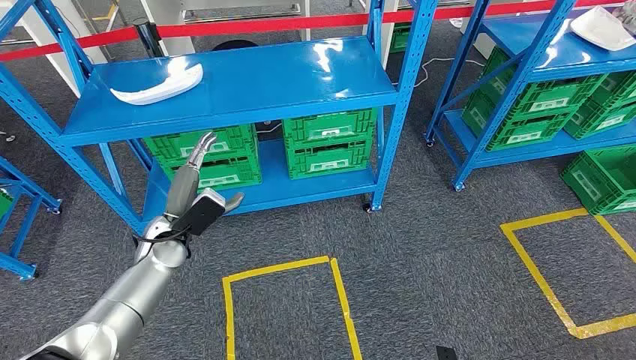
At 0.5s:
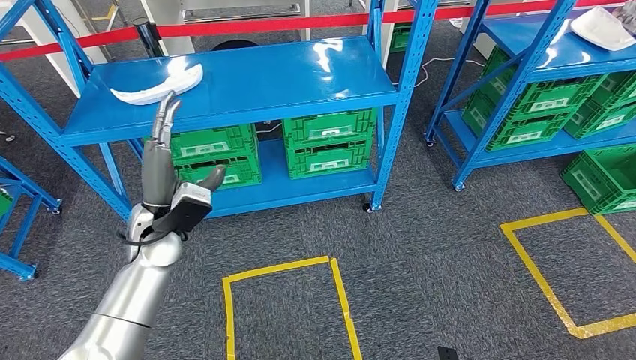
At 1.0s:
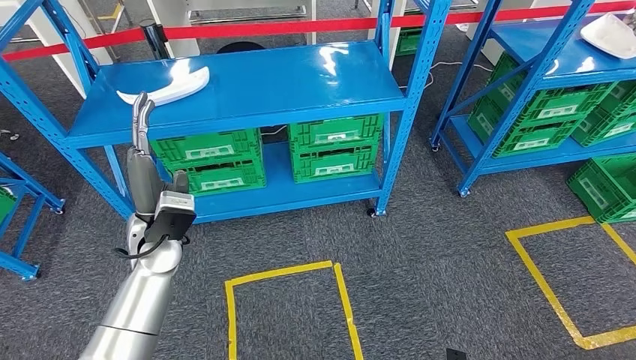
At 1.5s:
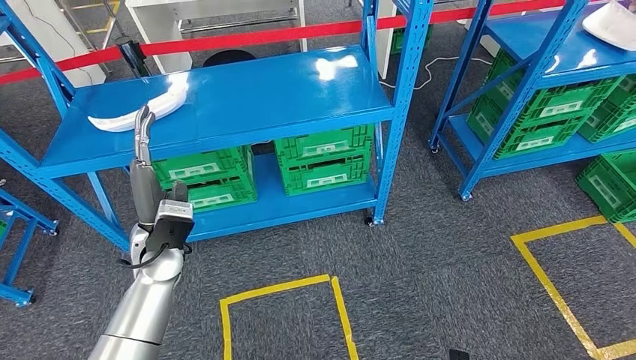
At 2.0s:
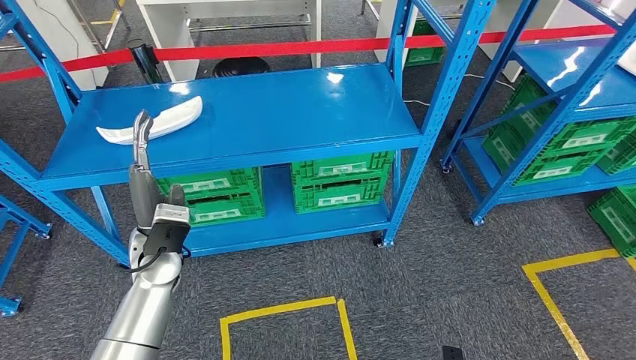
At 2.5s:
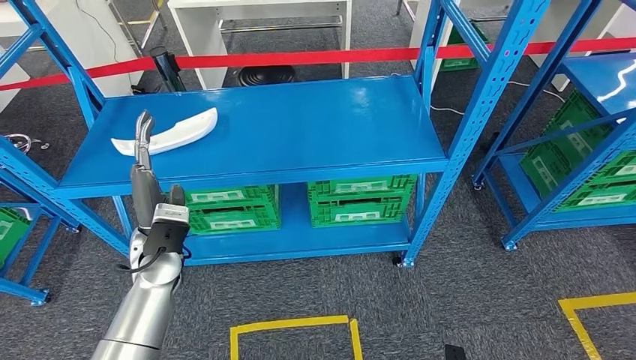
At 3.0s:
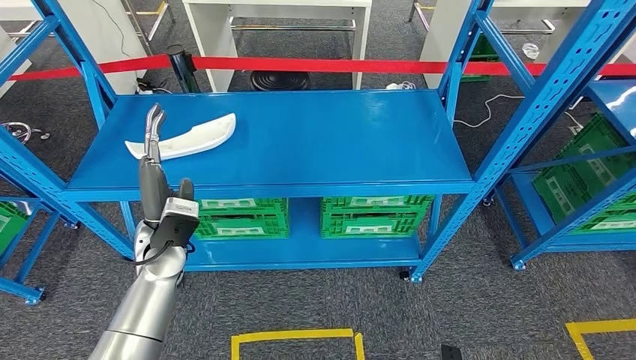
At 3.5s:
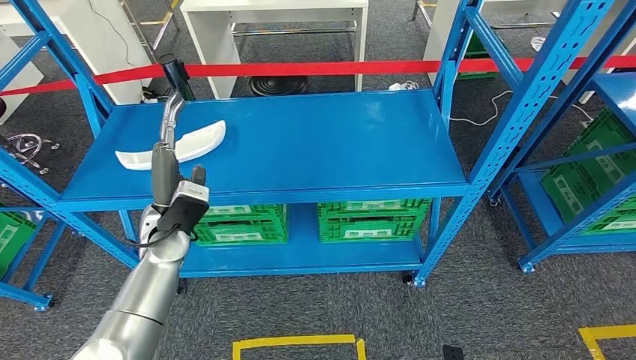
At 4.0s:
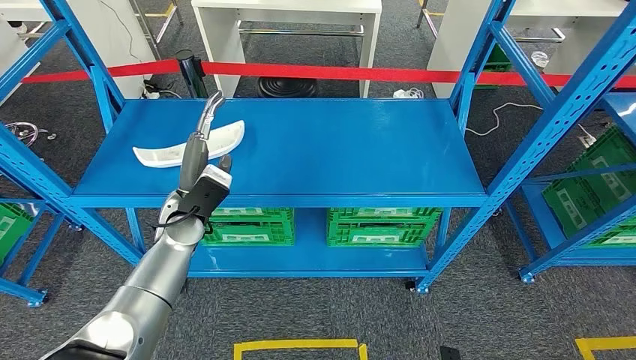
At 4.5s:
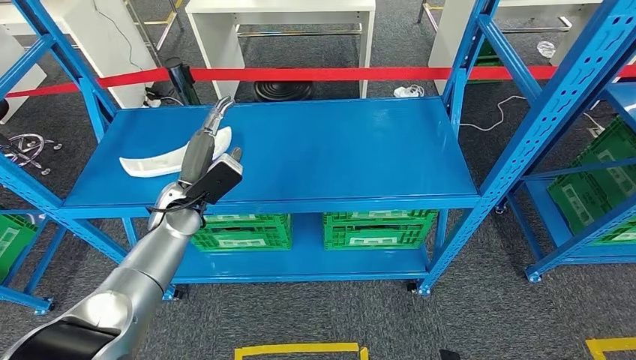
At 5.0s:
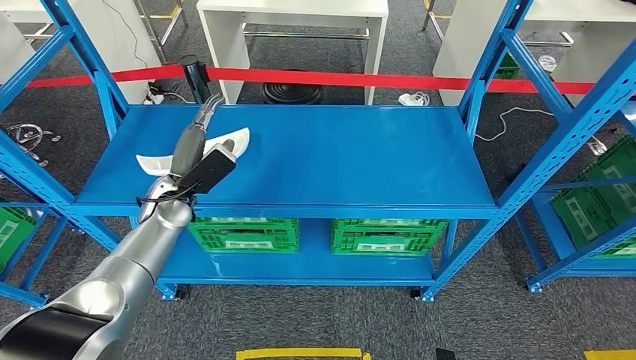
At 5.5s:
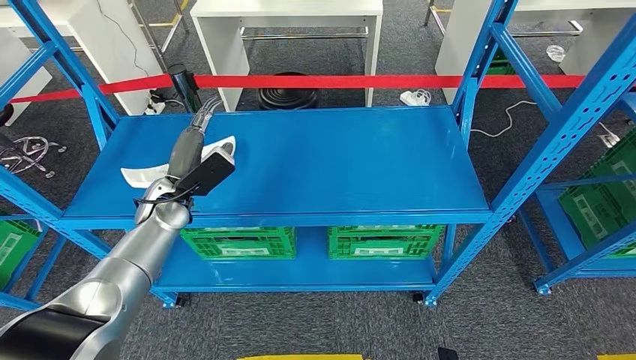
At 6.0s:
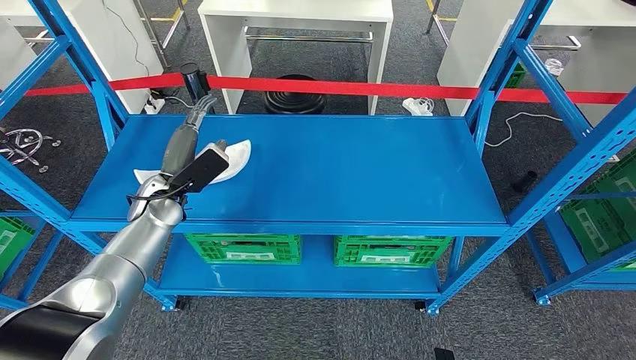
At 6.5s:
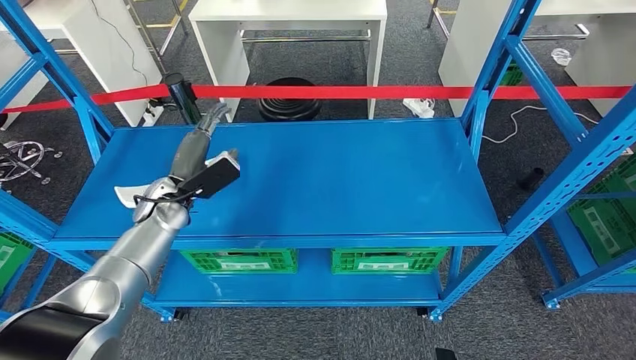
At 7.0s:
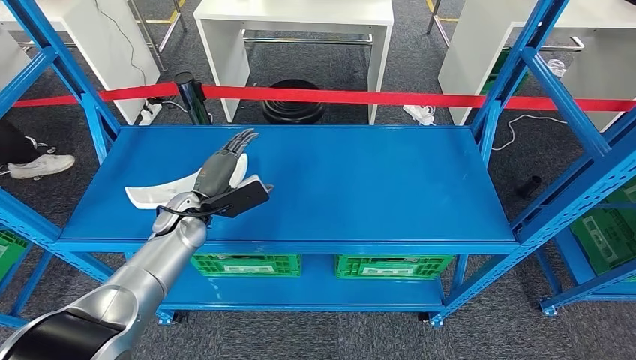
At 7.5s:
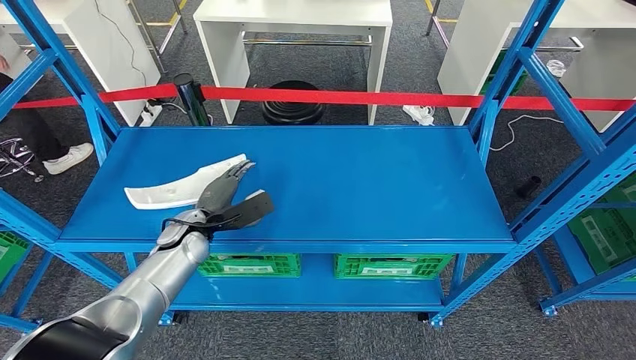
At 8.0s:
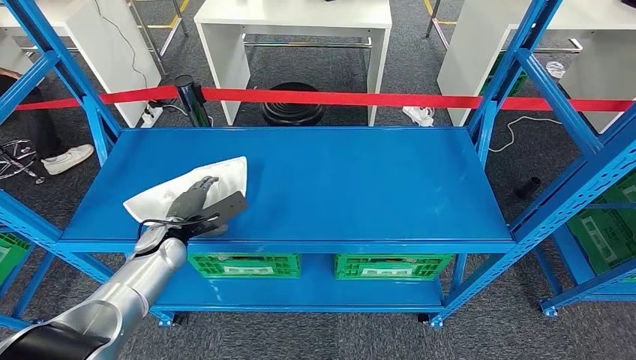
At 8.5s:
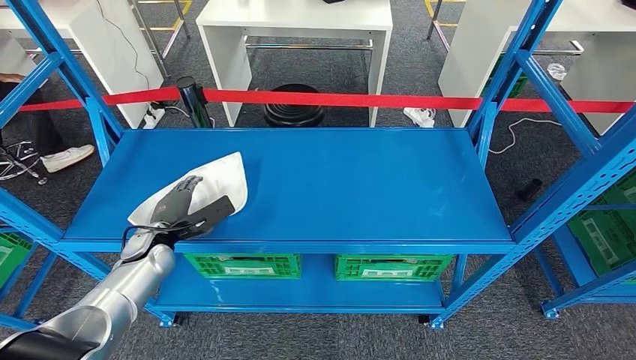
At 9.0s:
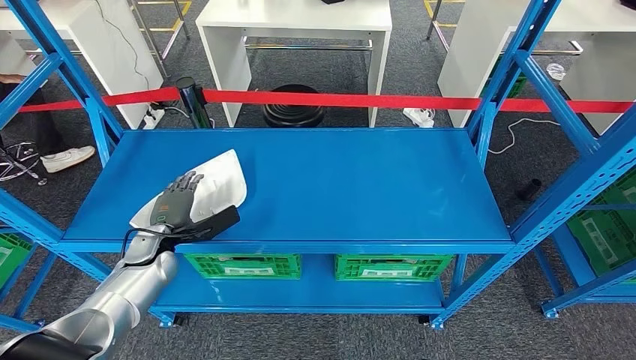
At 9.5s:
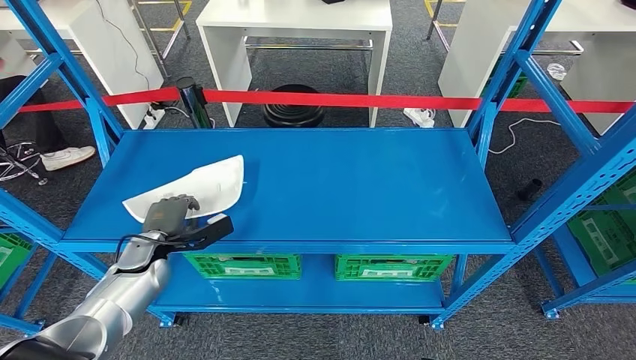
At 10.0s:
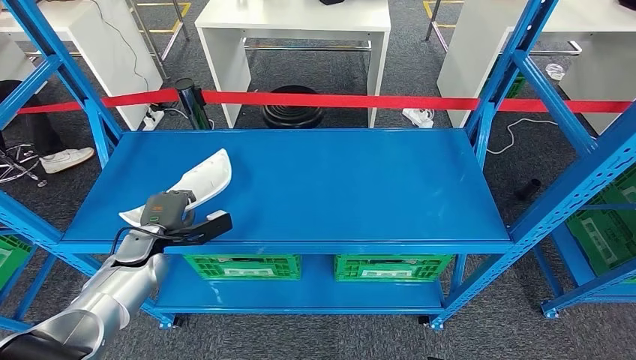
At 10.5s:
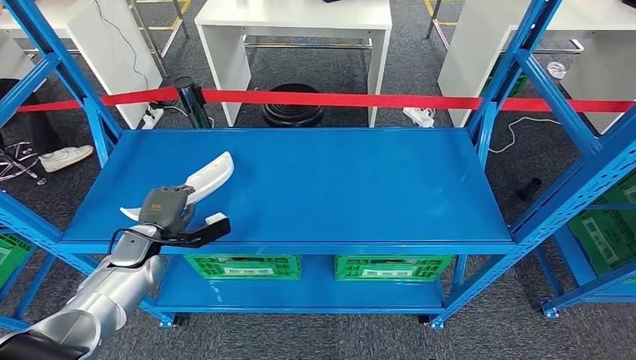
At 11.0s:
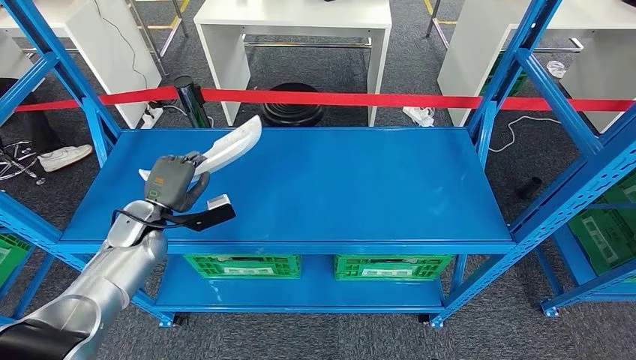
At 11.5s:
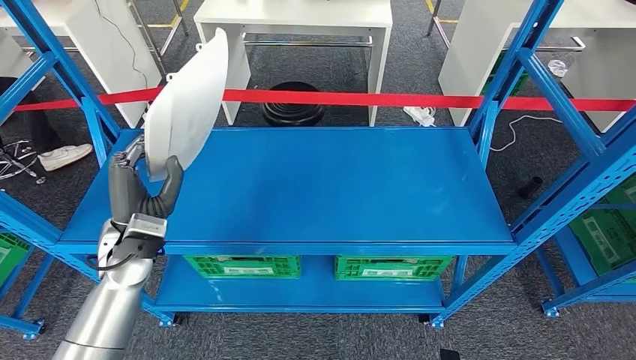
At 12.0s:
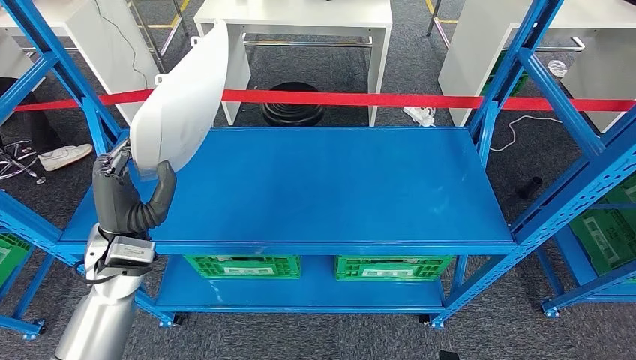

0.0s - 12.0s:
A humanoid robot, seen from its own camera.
Step, 0.0s - 11.0s: Take small components from the rack.
8.0s - 10.0s: The left hand moves approximately 5 cm.

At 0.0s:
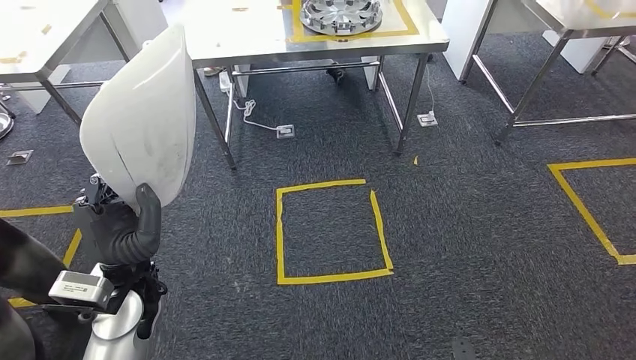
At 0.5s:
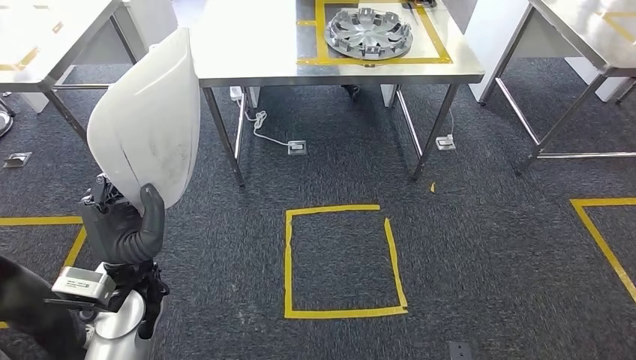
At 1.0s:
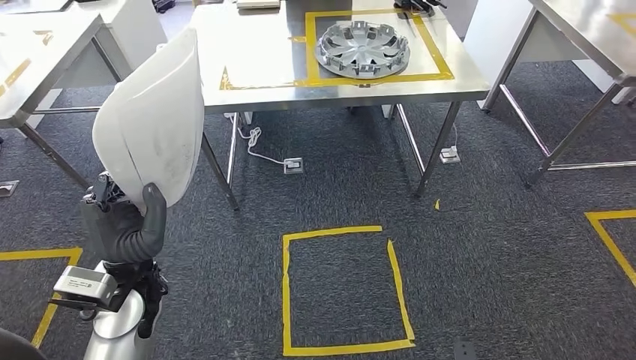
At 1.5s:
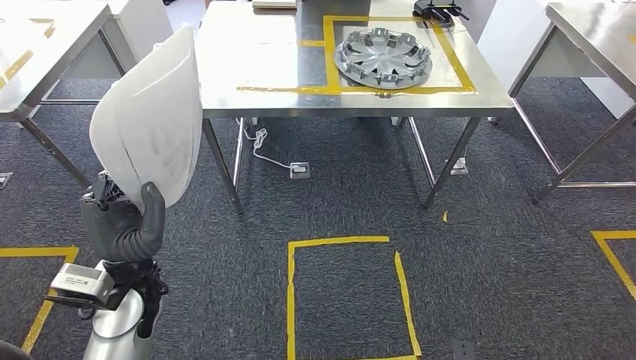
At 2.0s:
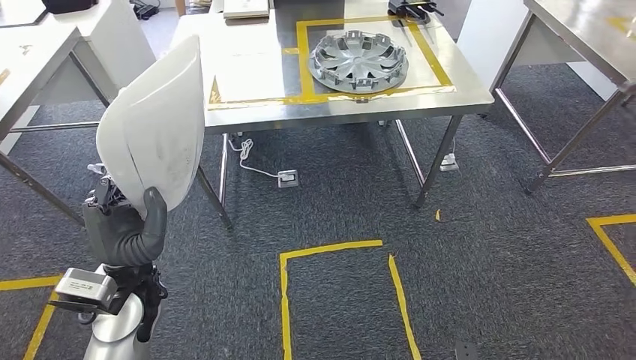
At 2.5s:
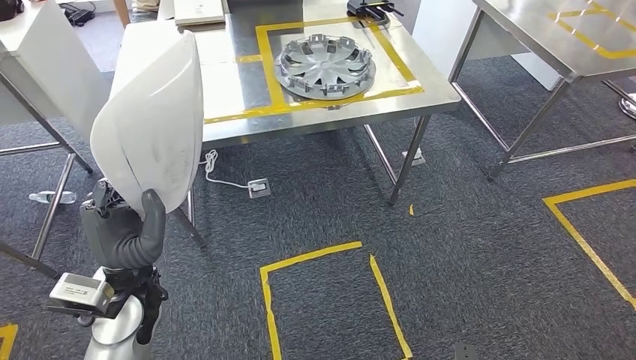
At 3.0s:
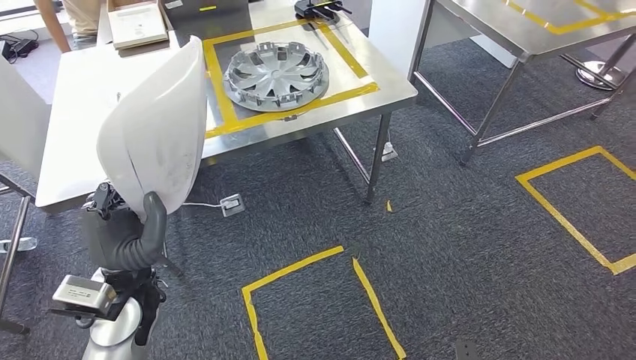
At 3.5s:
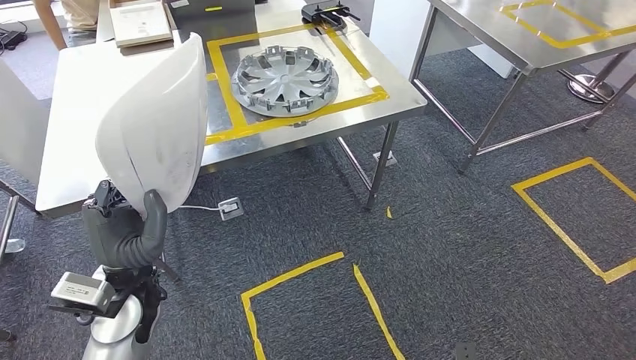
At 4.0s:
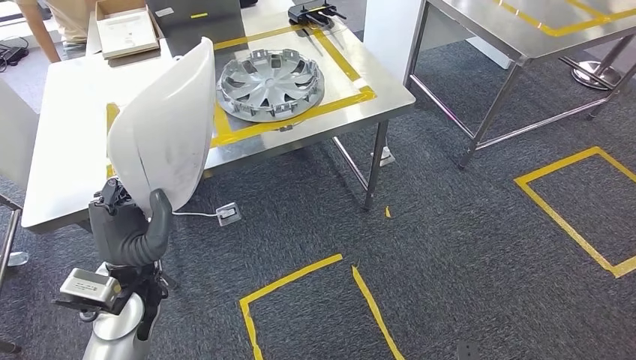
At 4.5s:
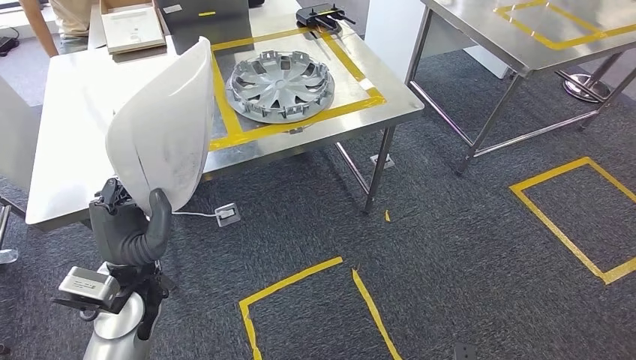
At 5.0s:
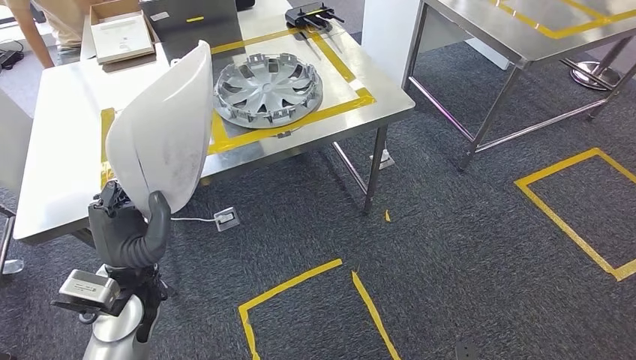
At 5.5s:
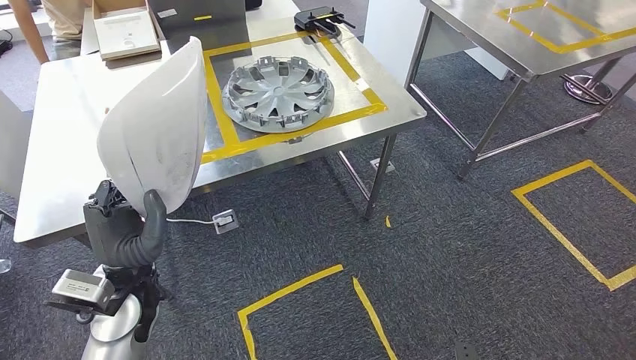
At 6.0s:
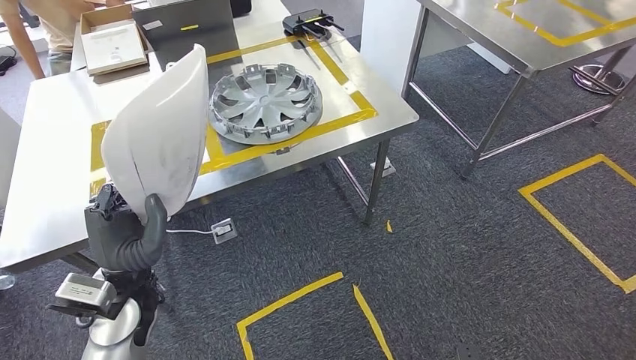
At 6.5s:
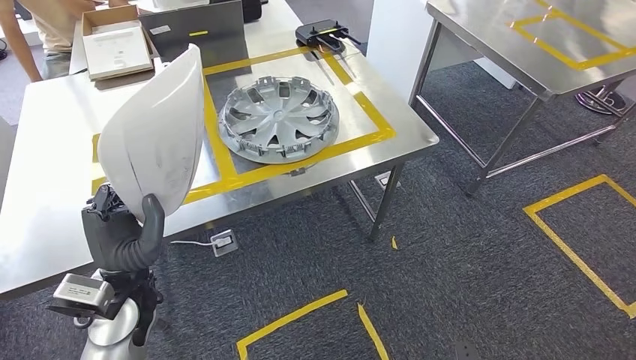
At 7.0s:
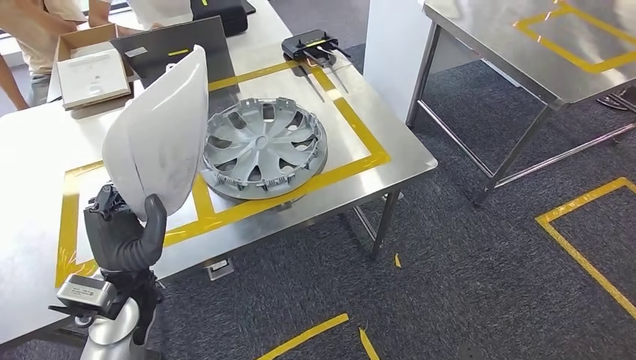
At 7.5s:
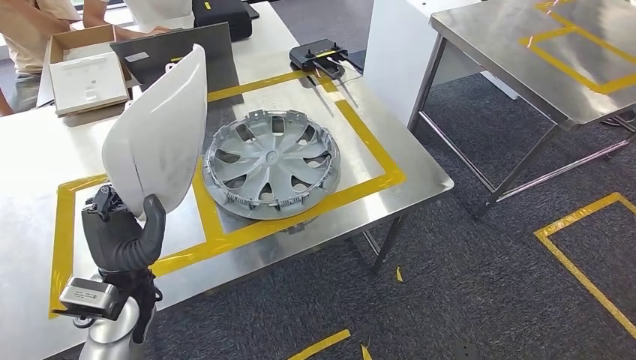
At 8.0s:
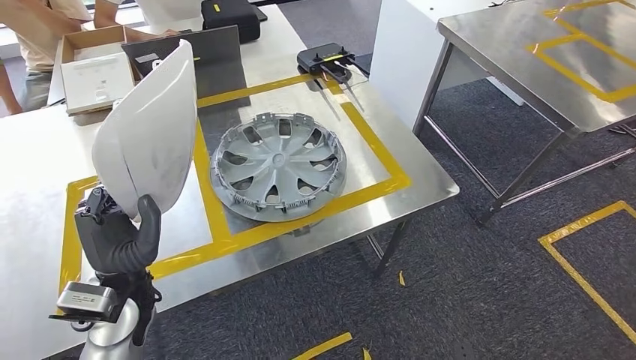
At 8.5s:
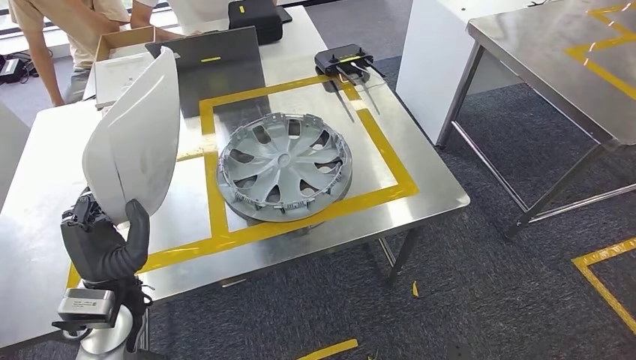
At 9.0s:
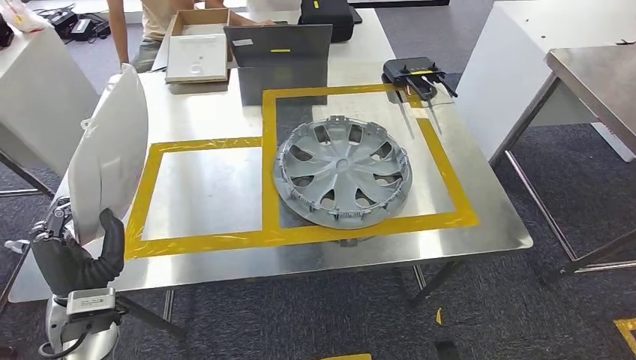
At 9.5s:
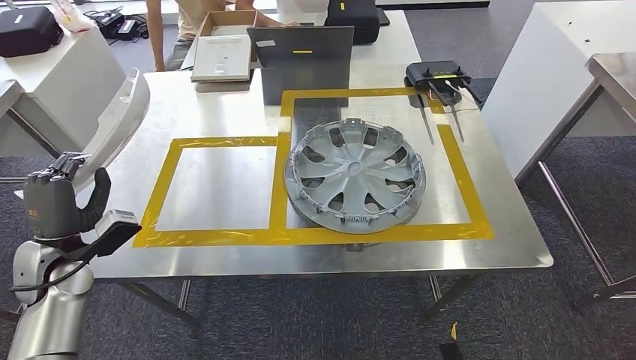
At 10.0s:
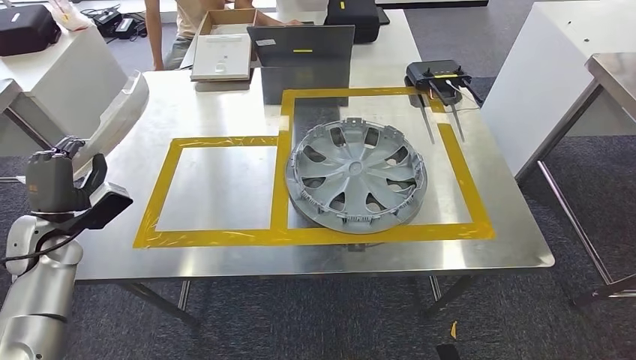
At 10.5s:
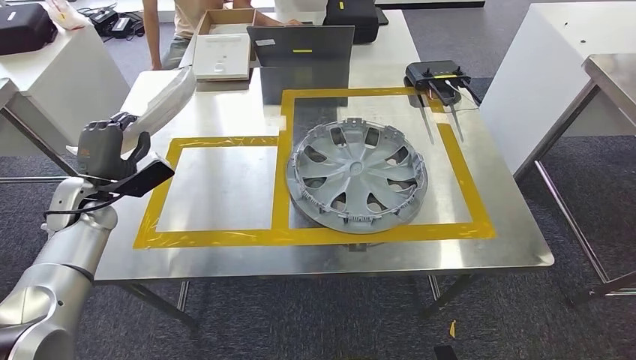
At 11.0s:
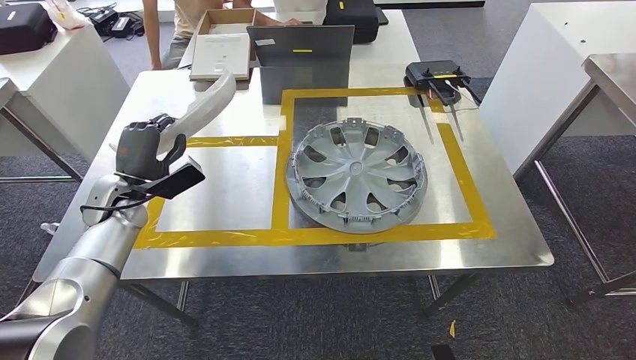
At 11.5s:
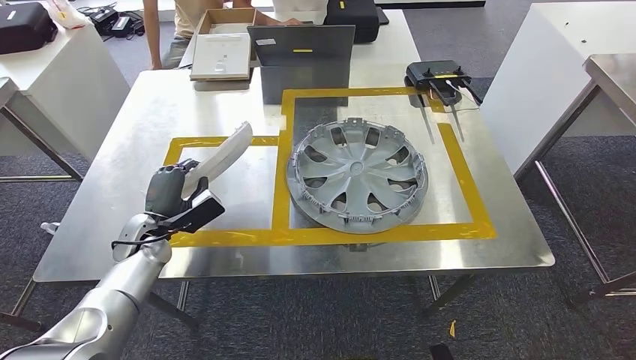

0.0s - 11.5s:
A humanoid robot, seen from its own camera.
Step, 0.0s - 8.0s: Move the small parts to the workbench.
